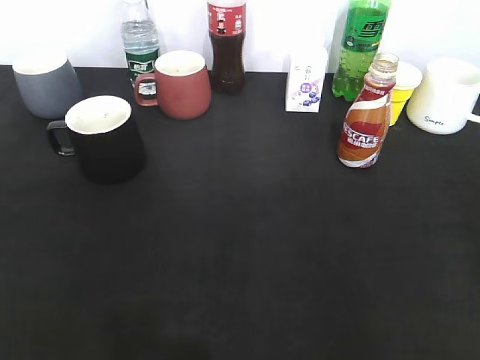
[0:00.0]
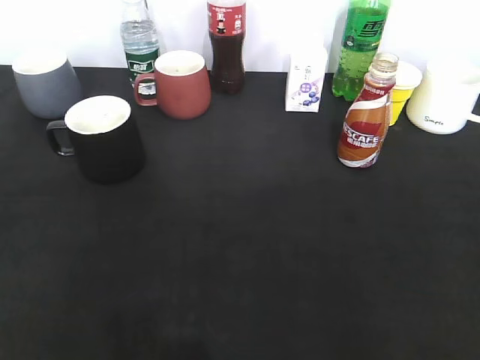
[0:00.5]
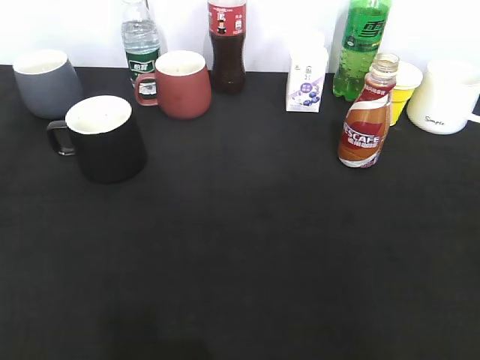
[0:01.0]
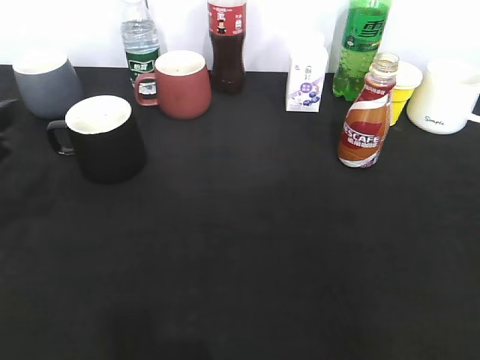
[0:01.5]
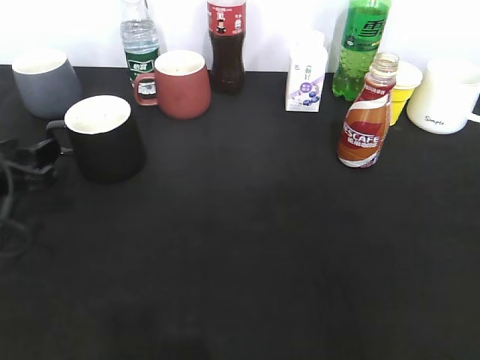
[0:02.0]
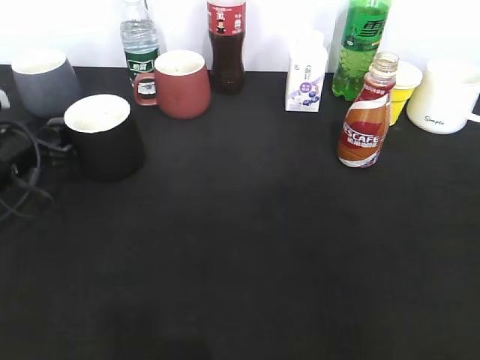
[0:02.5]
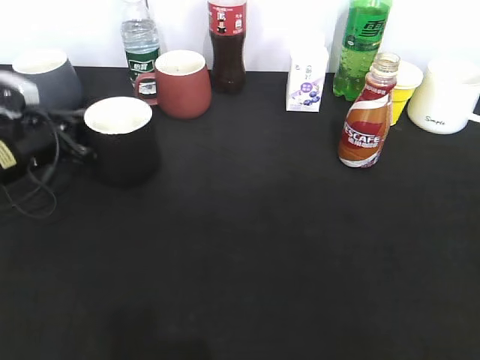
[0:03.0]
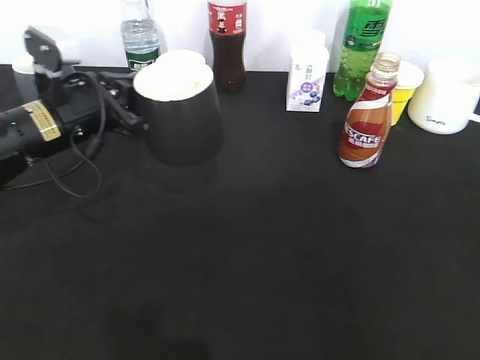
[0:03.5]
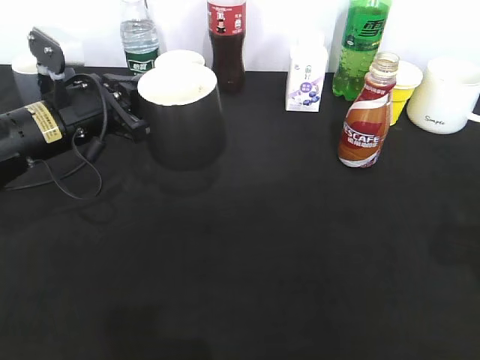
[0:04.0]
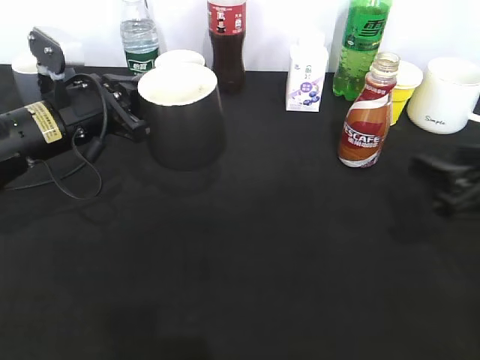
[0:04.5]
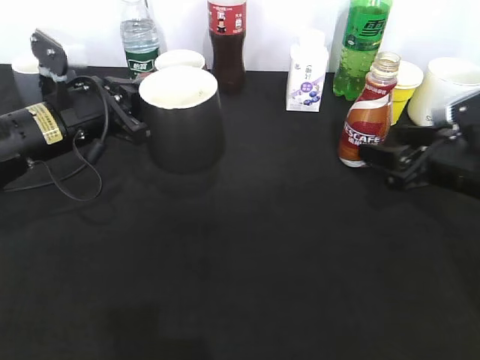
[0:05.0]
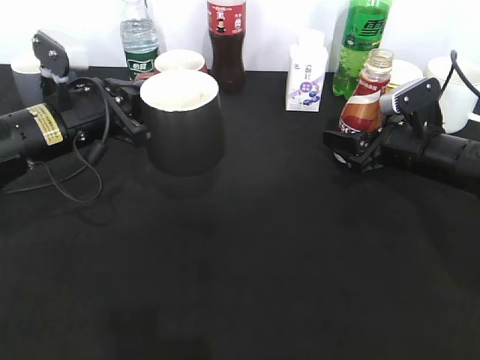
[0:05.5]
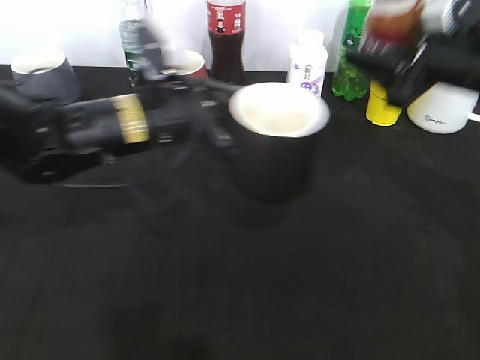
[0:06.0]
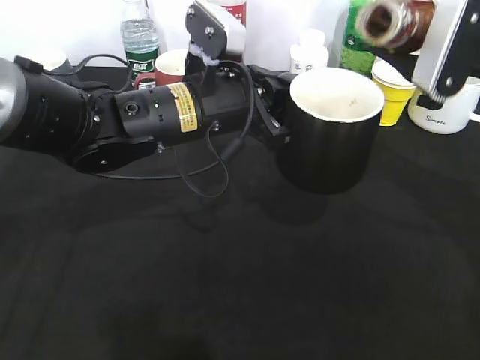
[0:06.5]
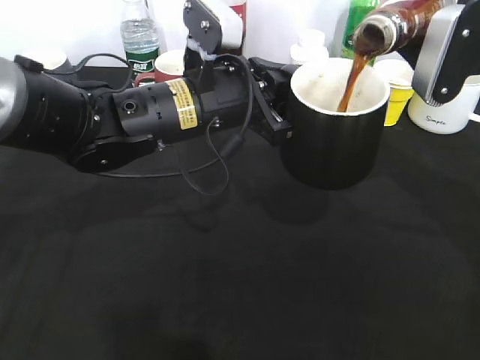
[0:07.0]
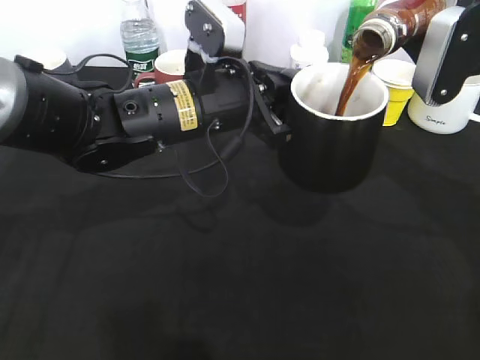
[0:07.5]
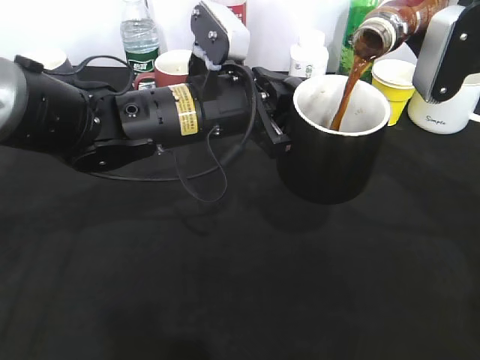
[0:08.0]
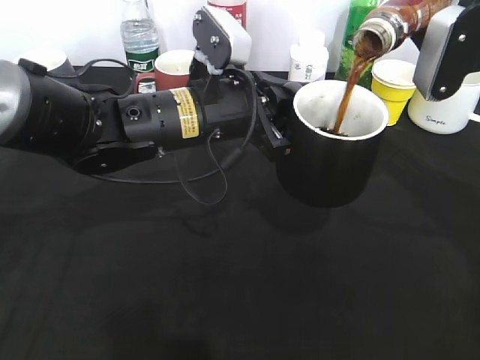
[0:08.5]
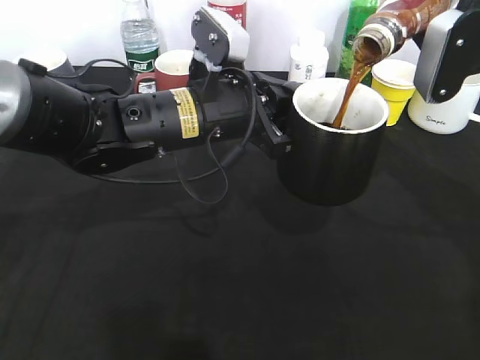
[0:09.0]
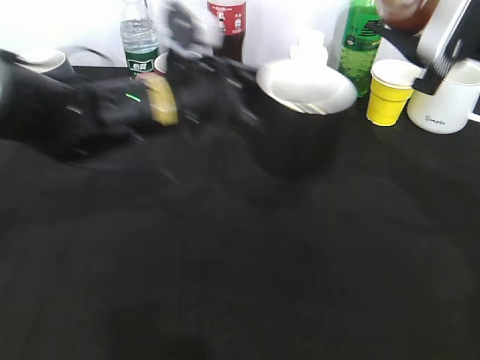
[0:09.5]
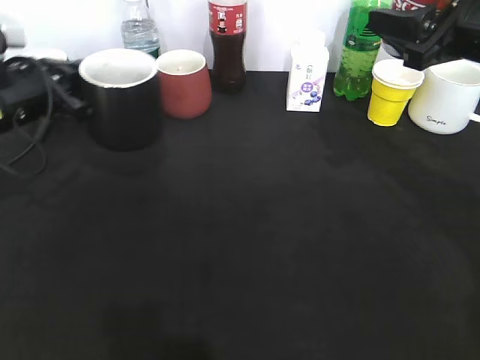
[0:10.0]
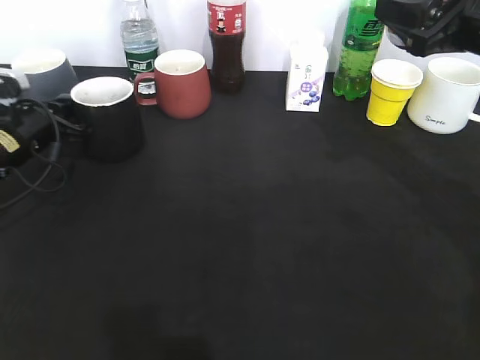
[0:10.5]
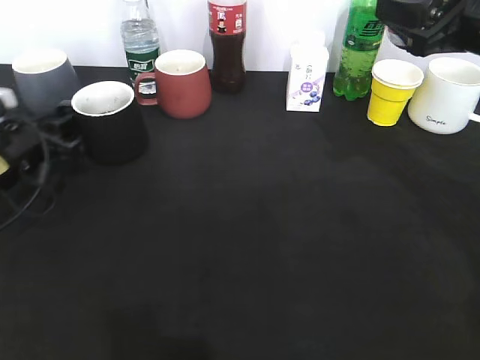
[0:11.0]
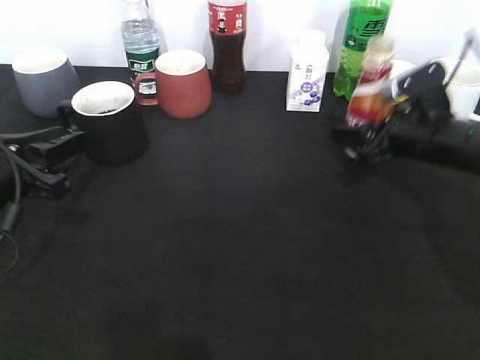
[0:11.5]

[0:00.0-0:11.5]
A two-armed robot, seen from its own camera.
Step, 0:01.0 to 0:02.5: Grasp the black cup with left gripper.
Step, 0:03.0 to 0:03.5: Lift the black cup with left gripper.
Step, 0:04.0 to 0:05.5: Grasp the bottle with coffee with right gripper.
Step, 0:06.0 to 0:09.5: Pour the coffee from bottle to cup with right gripper.
Step, 0:10.0 to 0:11.0: Place the black cup on the table with left gripper.
0:00.0 to 0:02.0: The left gripper is displaced forward and downward by some 30 cm.
0:02.0 to 0:04.0: The left gripper travels to the right and forward by some 10 cm, and closes its fingers. Meanwhile the right gripper goes some 15 cm forward.
0:04.0 to 0:06.0: The left gripper is displaced to the right by approximately 10 cm. Meanwhile the right gripper is displaced forward and to the left by some 20 cm, and closes up.
0:09.5 to 0:11.5: The left gripper moves to the left, approximately 20 cm, and opens up, while the right gripper heads downward, covering roughly 15 cm.

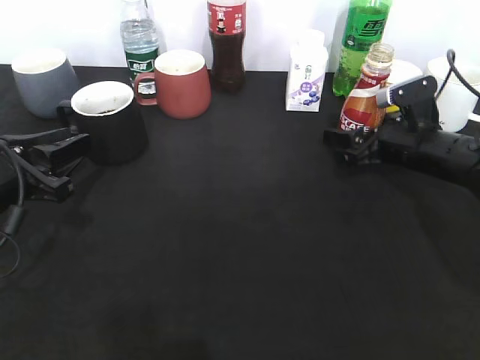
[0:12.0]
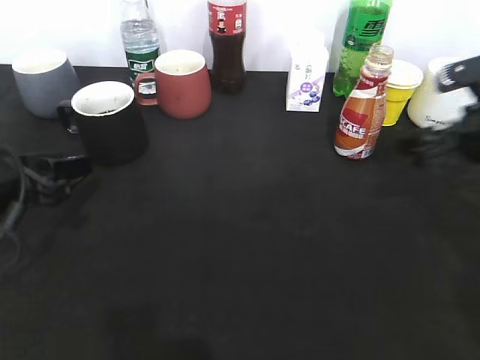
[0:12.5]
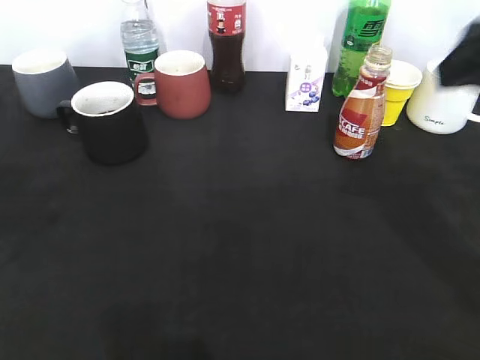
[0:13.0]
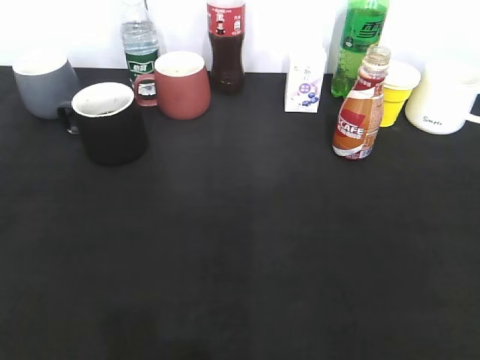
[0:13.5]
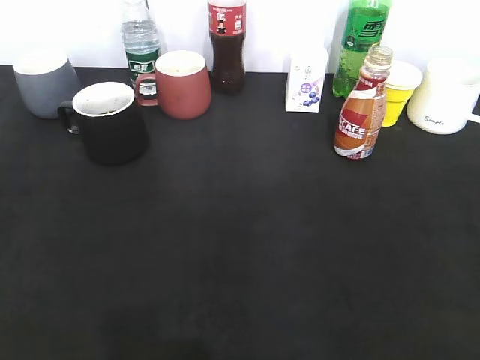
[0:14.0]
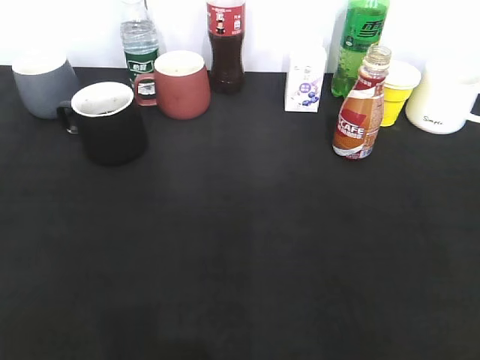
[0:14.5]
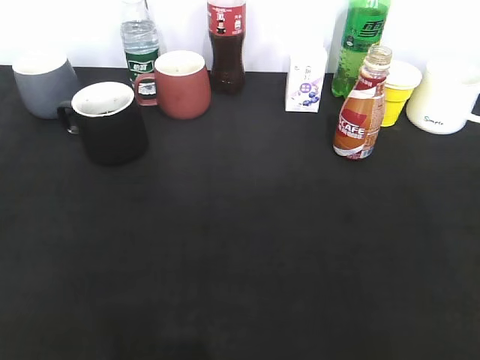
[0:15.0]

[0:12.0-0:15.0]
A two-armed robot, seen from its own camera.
0:12.0 to 0:13.5: The right gripper goes some 40 cm backward and upward, and closes its fingers, while the left gripper travels backward and upward by some 30 cm.
0:13.5 to 0:15.0: The right gripper closes up.
